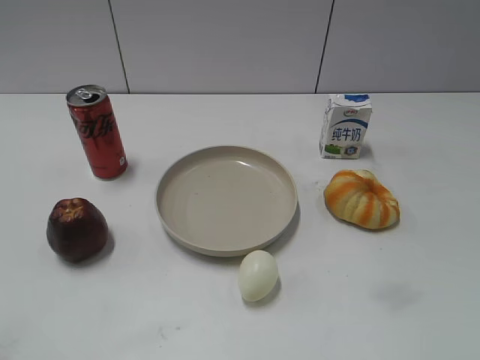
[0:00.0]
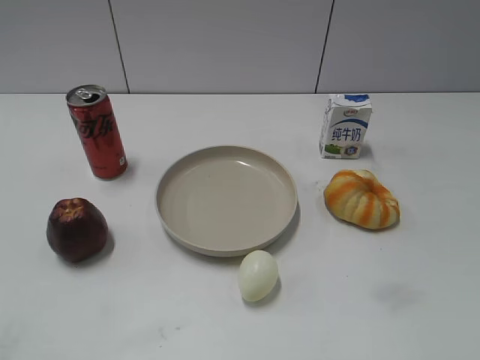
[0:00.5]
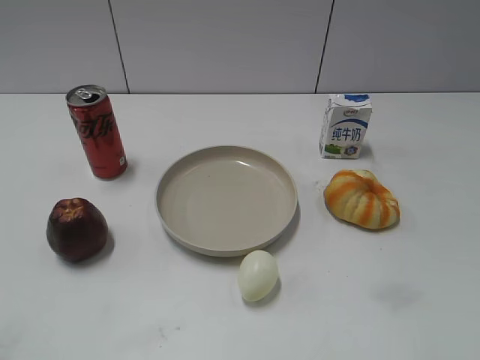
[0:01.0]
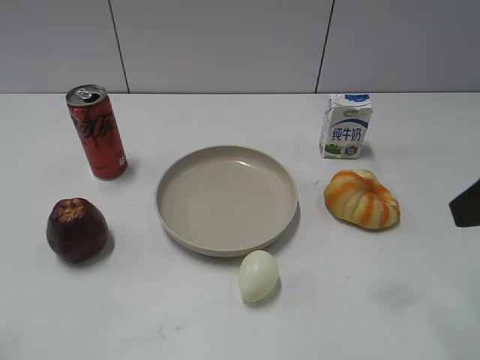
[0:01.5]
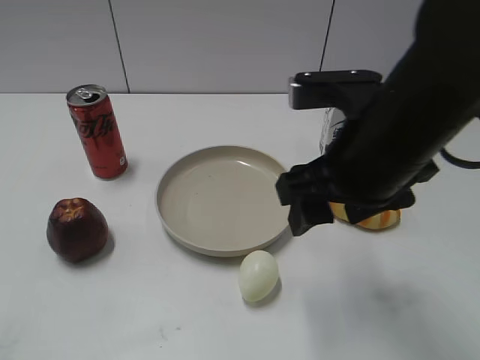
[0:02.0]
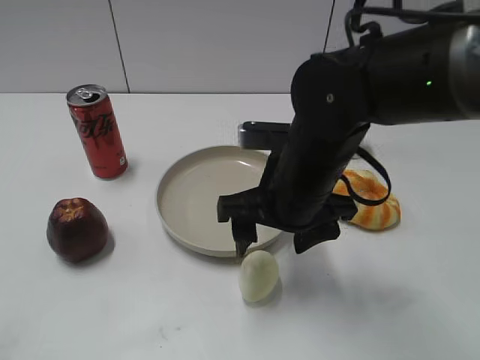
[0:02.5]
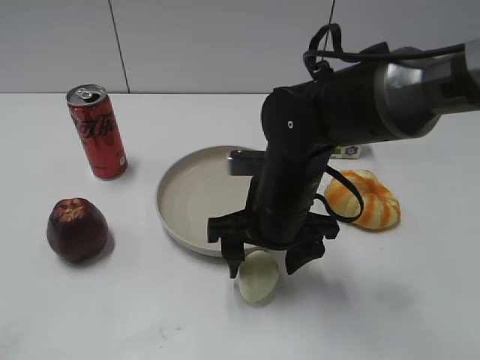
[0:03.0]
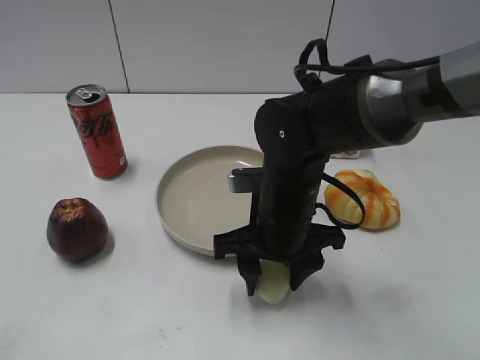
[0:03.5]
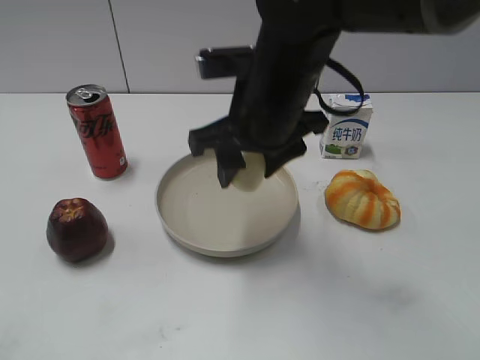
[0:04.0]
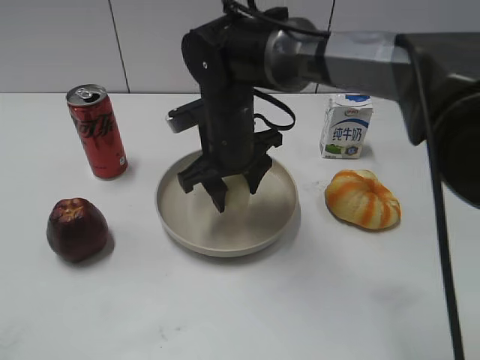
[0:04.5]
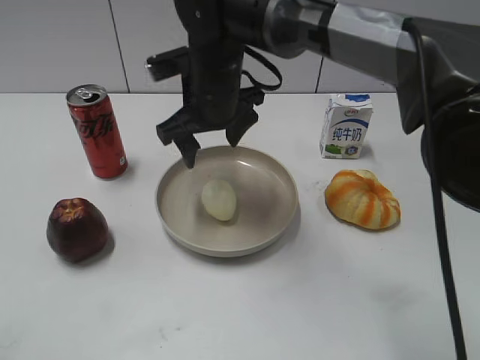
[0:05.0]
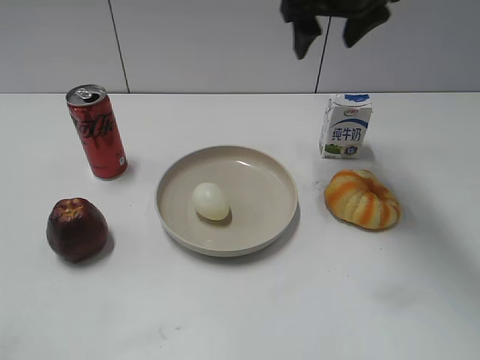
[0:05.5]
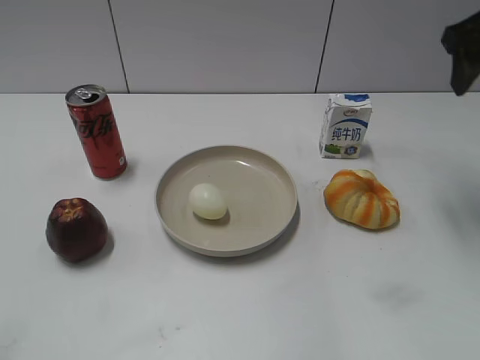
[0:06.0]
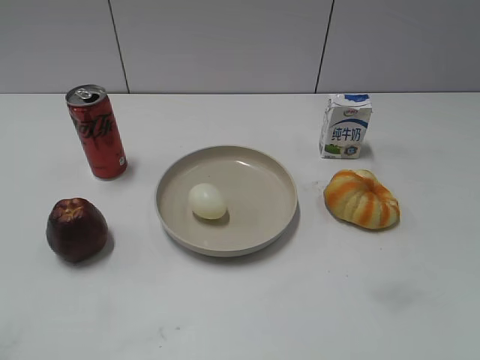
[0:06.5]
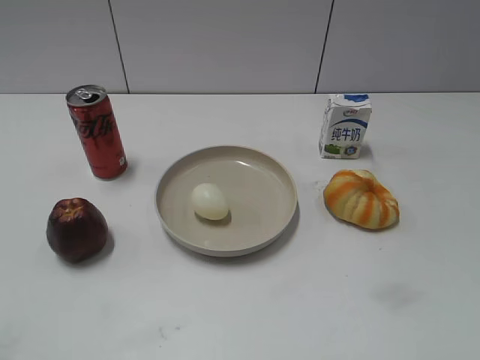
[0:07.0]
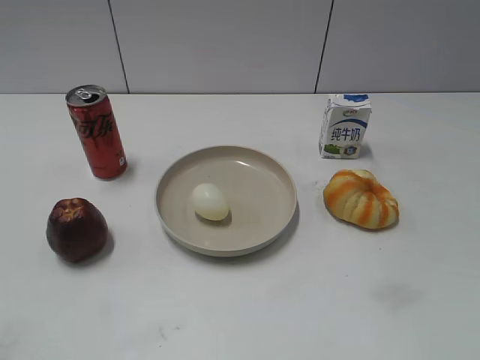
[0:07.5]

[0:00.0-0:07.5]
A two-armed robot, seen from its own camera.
Step, 0:01.0 to 0:03.0: Grasp the egg with right gripper.
Step, 0:03.5 to 0:04.5: Place the egg on the plate with right gripper.
0:02.0 to 0:04.0: The right gripper is displaced to the left and forward by roughly 10 cm, travels downward and back again, some 15 cm each way, and closes up.
0:04.0 to 0:05.5: The right gripper is displaced forward, to the right and upward by some 20 cm, and opens.
0:05.5 to 0:07.5: The right gripper shifts approximately 50 cm backward and to the right.
